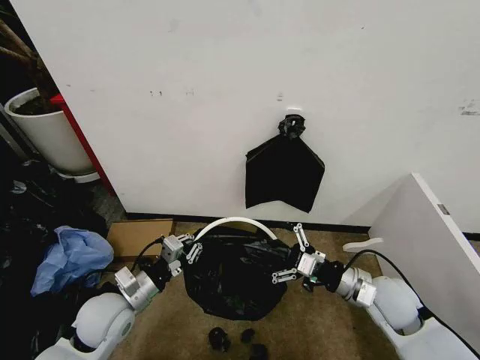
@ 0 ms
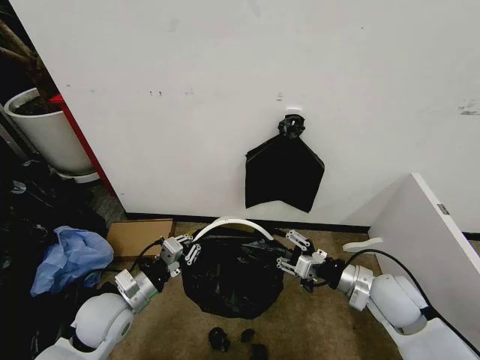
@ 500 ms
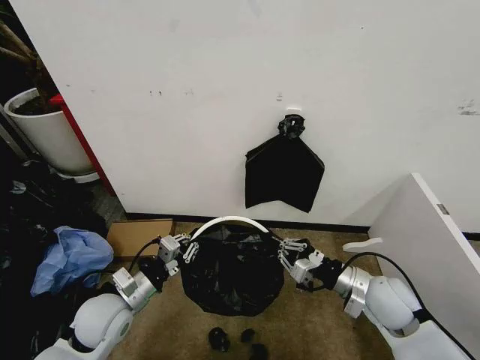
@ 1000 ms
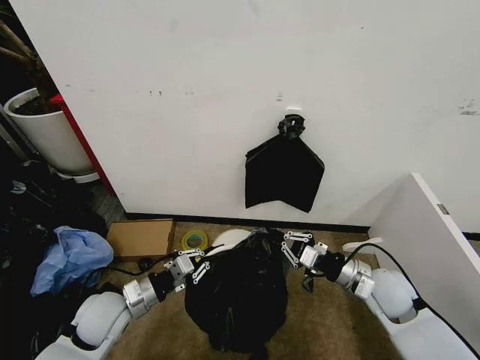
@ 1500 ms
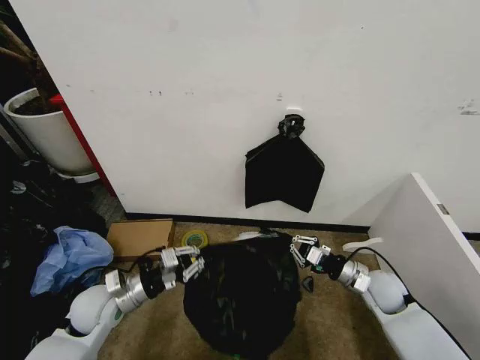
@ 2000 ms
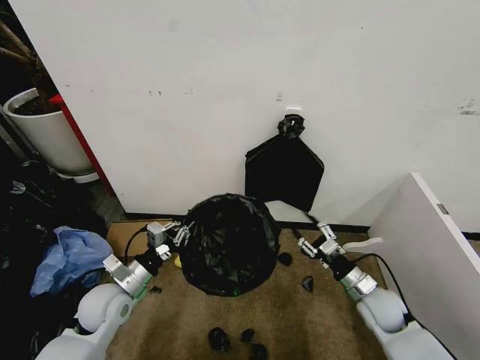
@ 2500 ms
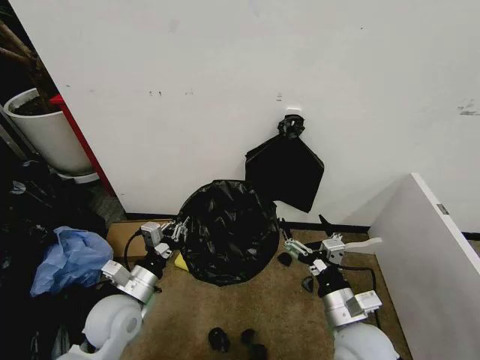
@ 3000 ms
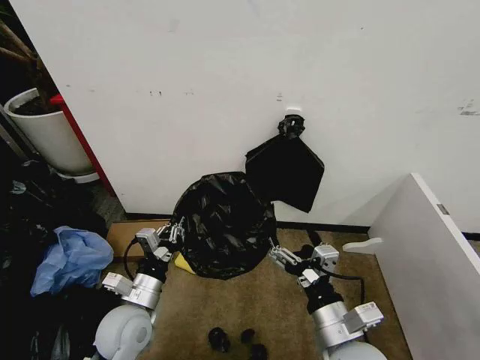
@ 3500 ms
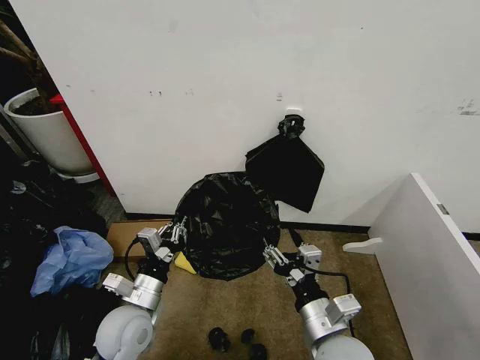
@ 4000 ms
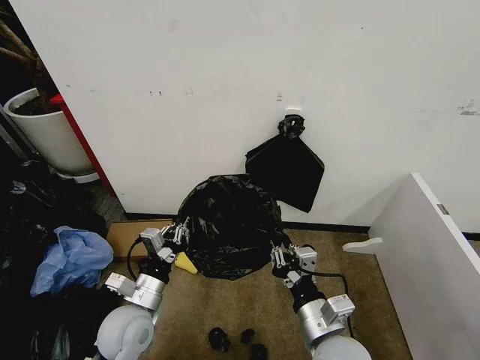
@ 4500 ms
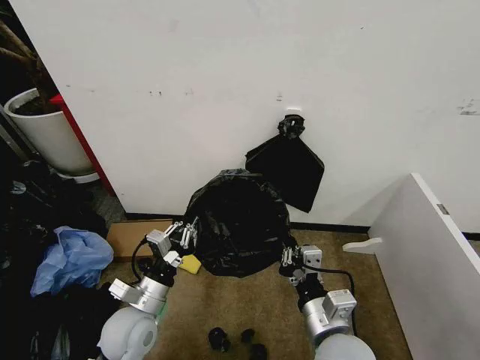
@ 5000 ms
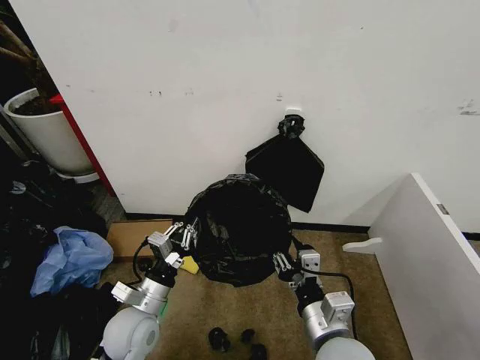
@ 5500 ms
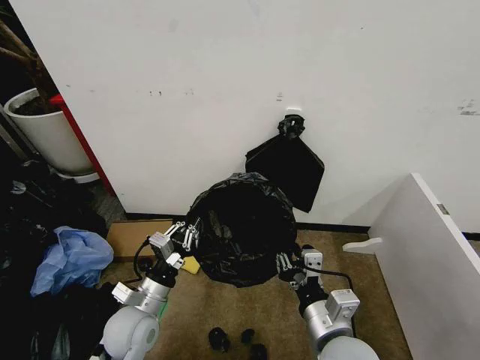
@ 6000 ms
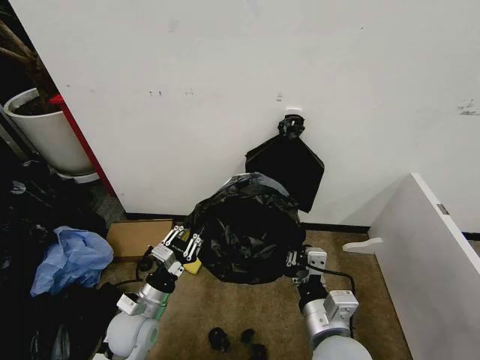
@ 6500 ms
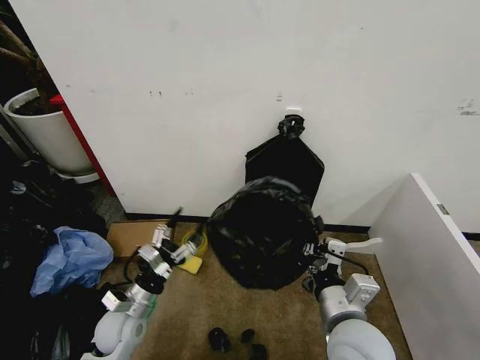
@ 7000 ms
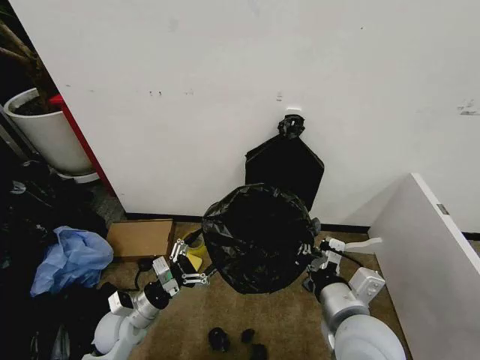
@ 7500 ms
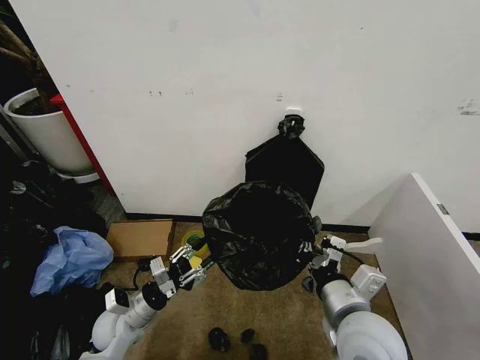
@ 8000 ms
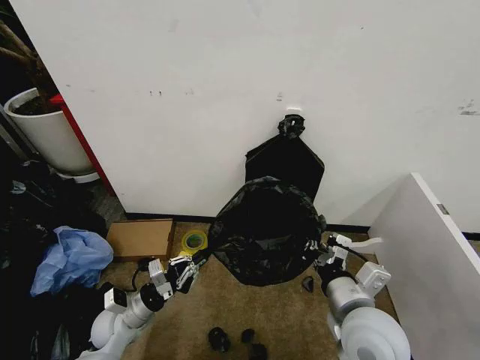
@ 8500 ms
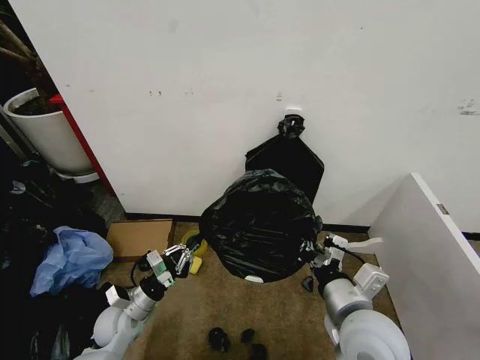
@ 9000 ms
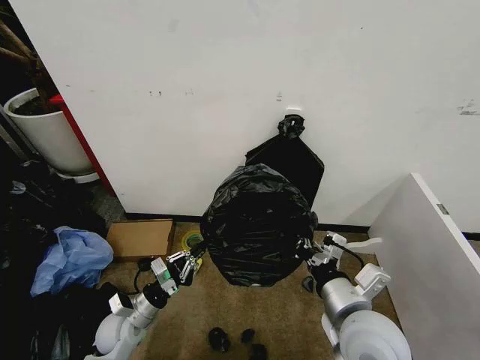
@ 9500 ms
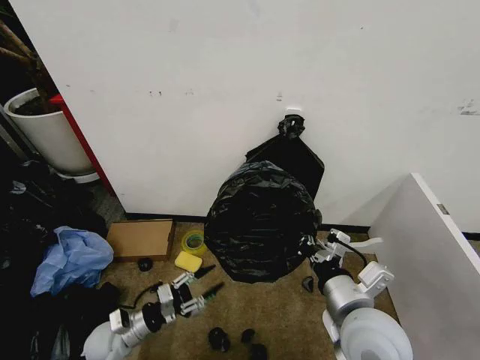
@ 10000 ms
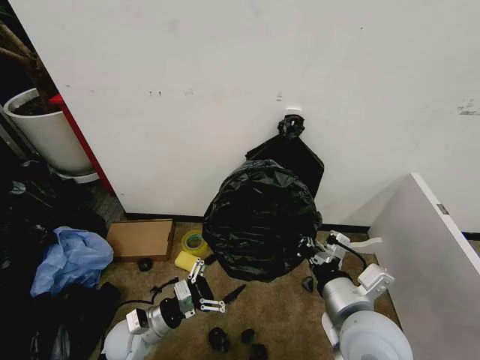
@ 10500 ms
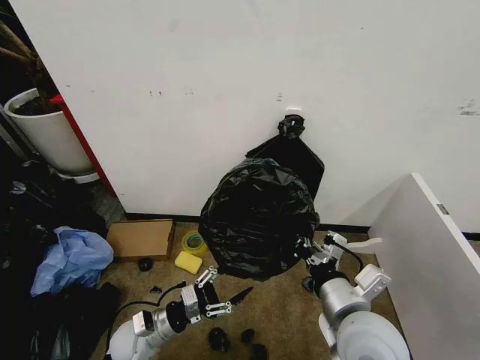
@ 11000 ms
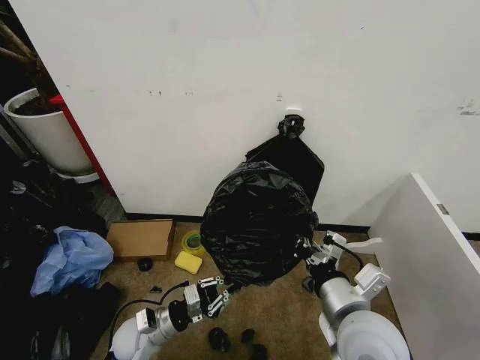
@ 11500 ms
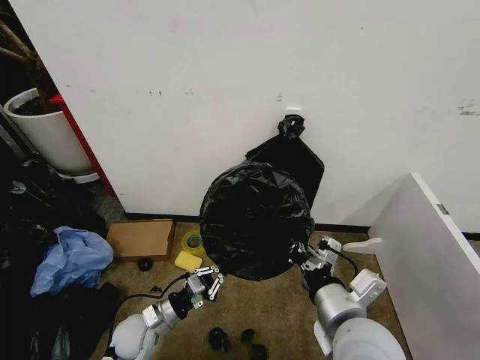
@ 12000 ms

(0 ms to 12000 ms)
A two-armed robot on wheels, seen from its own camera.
Task of the whole recording: Place the garbage bag over the trash bin.
0 ms - 2000 ms: The right gripper heads downward and forward, covering some 10 cm, and closes its fingers.
2000 ms - 4000 ms: The right gripper is displaced to the left, backward and upward by some 25 cm, and opens its fingers. Meanwhile the left gripper shifts about 10 cm to the right.
4000 ms - 6000 ms: The right gripper closes its fingers.
6000 ms - 8000 ms: The left gripper travels downward and to the left by approximately 10 cm, and opens.
8000 ms - 10000 ms: The left gripper ends up about 5 cm from where it was, and closes and opens again.
10000 ms - 12000 ms: The left gripper goes roughly 5 cm to the right, and closes up.

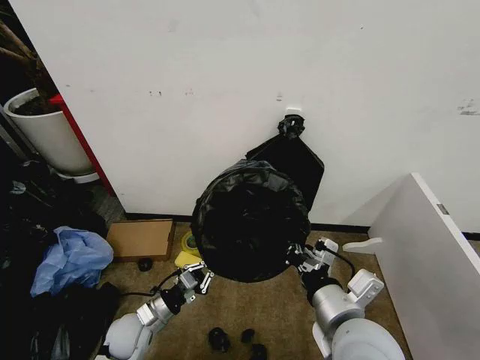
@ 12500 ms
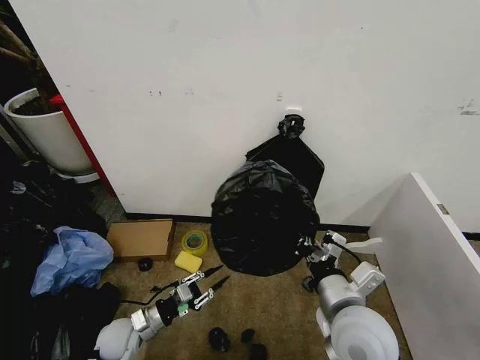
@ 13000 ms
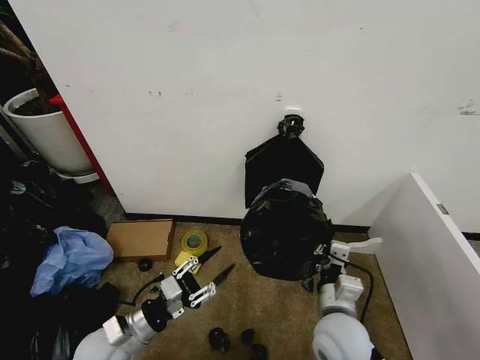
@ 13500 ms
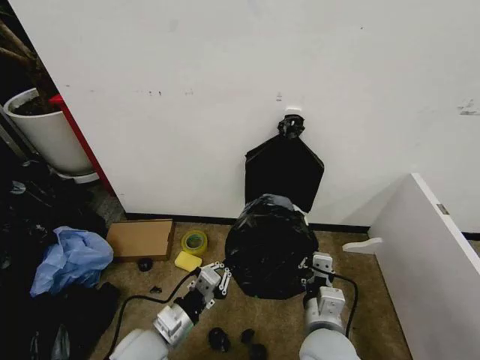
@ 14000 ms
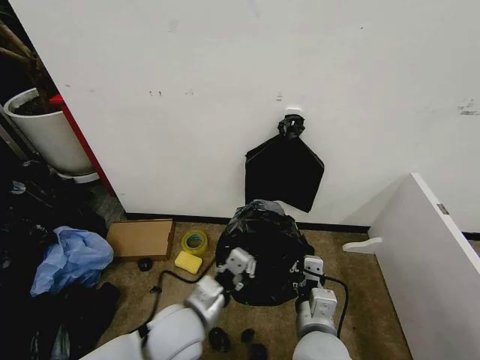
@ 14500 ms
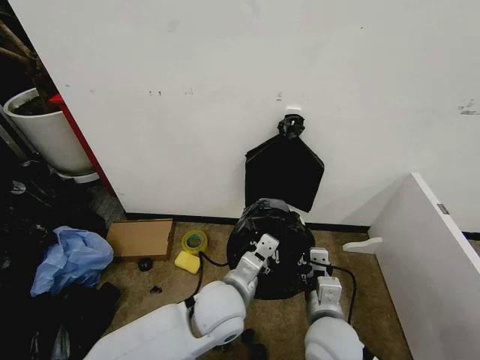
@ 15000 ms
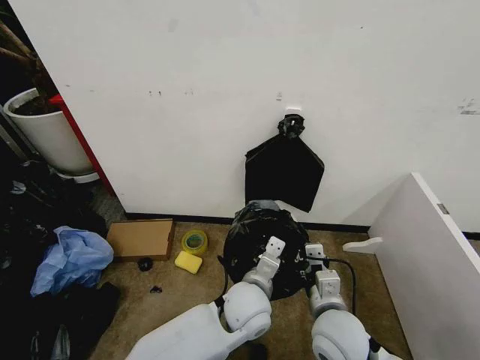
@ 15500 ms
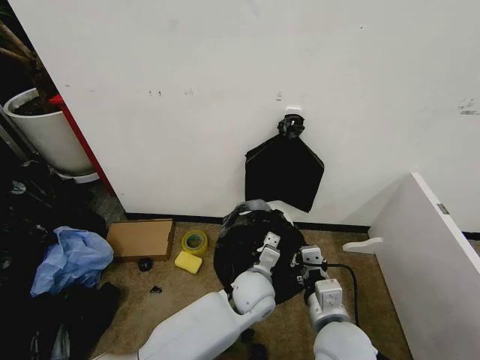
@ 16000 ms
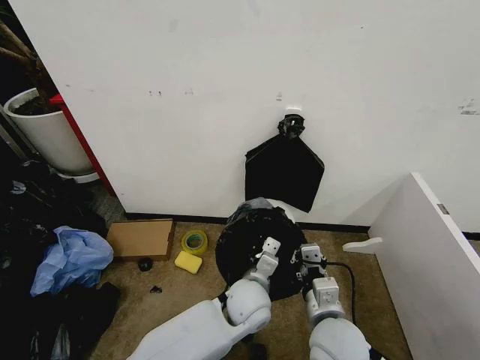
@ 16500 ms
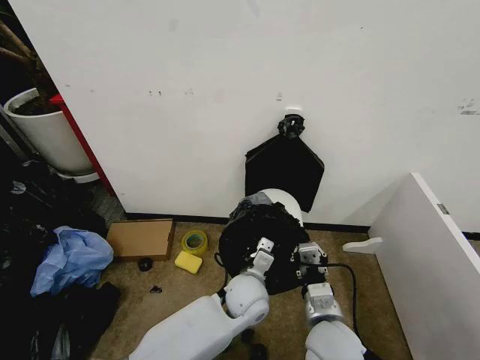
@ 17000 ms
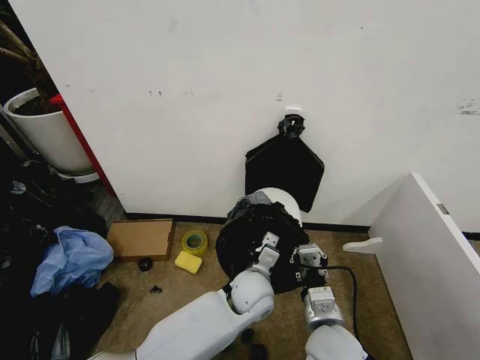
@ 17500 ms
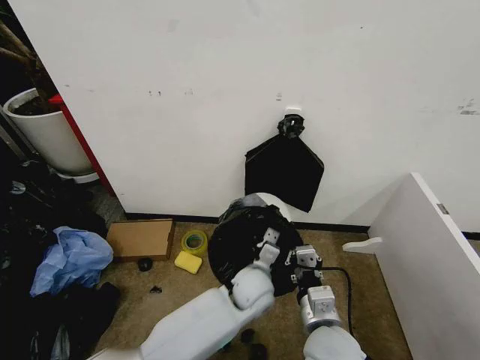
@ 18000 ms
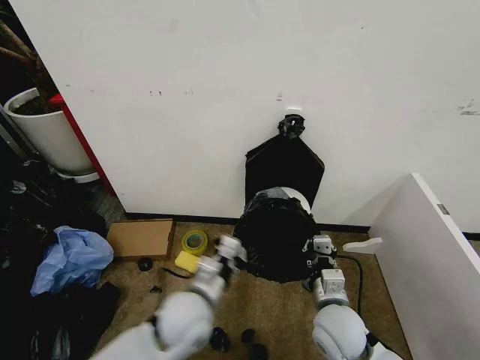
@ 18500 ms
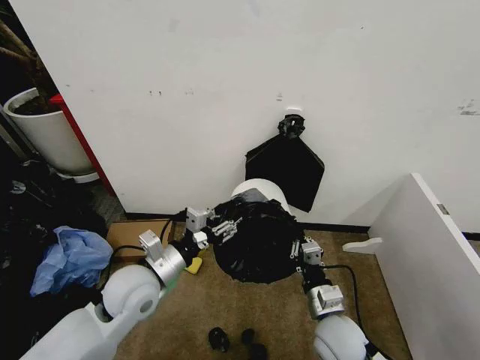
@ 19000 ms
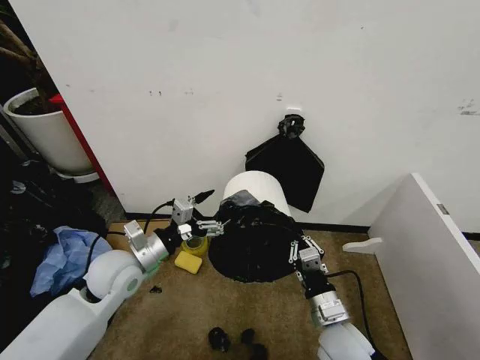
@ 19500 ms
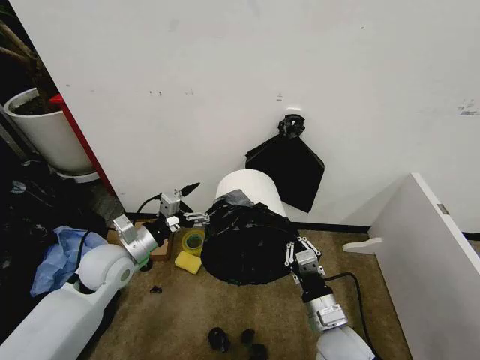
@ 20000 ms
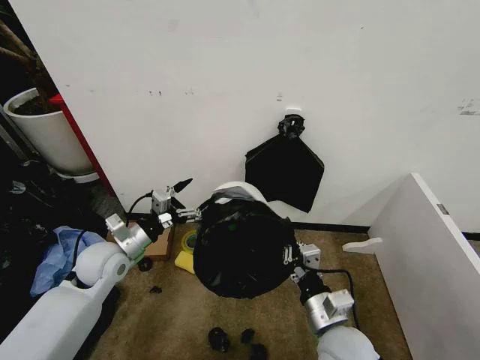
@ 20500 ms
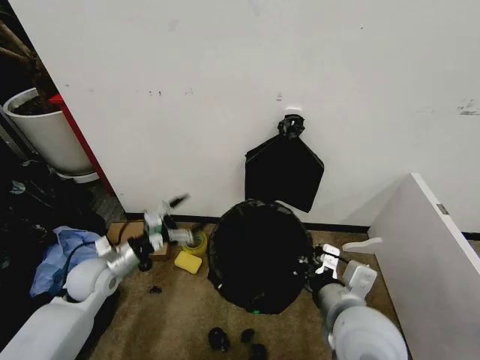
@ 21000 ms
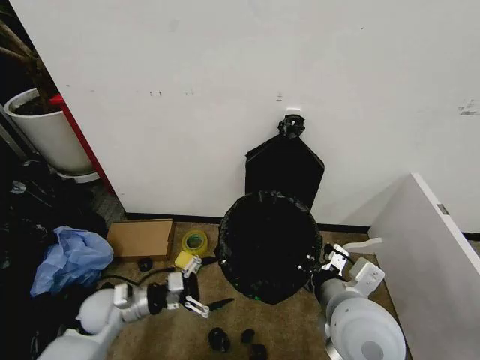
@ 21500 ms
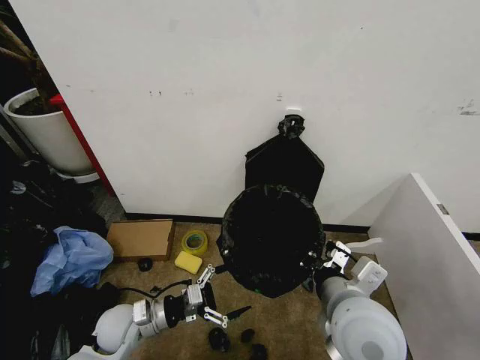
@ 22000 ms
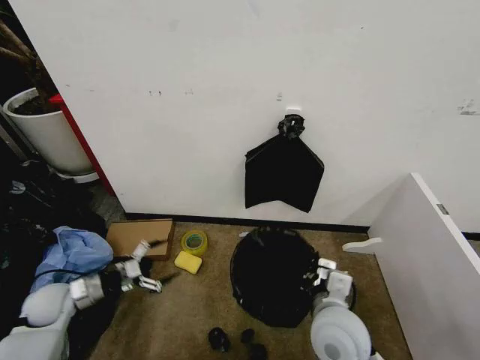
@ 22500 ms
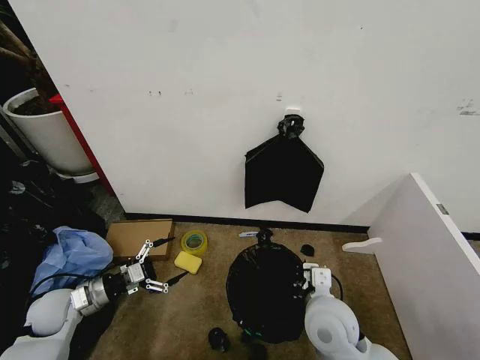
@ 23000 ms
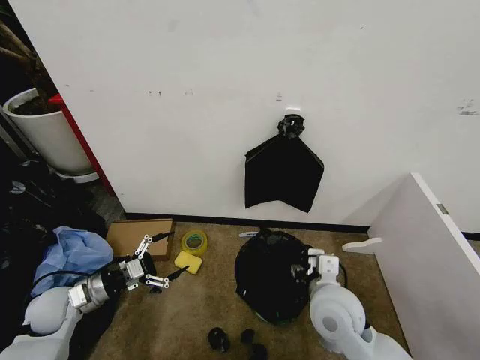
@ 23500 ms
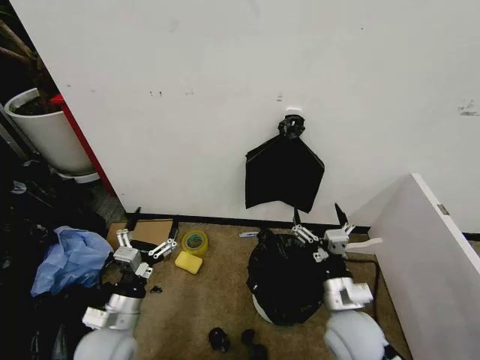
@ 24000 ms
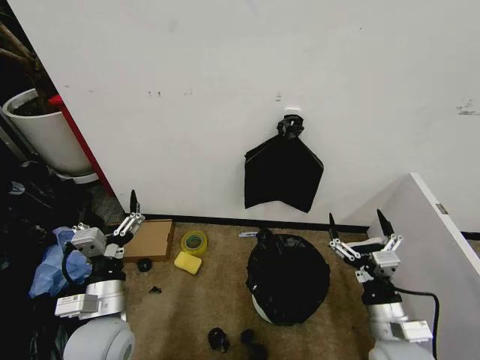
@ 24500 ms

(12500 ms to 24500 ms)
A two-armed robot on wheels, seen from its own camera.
Task of the whole recording: Place the garbage bag over the trash bin.
12500 ms - 14500 ms: The left gripper is displaced to the right and upward by about 20 cm, and opens, then closes once more. Meanwhile the right gripper shifts roughly 10 cm downward.
14500 ms - 16500 ms: The left gripper goes some 15 cm to the right and forward.
16500 ms - 18500 ms: The right gripper moves about 5 cm; the left gripper shifts approximately 10 cm to the left.
18500 ms - 20500 ms: The left gripper is displaced to the left and forward by some 25 cm, and opens its fingers.
20500 ms - 22500 ms: The right gripper goes upward and returns, some 10 cm each way. The left gripper shifts roughly 15 cm to the left and downward.
22500 ms - 24500 ms: The right gripper goes roughly 10 cm to the right, and opens. Meanwhile the left gripper travels to the right, backward and upward by approximately 25 cm.

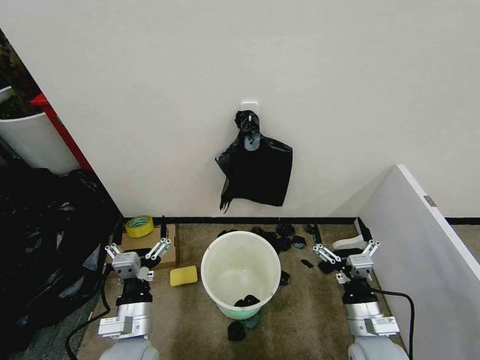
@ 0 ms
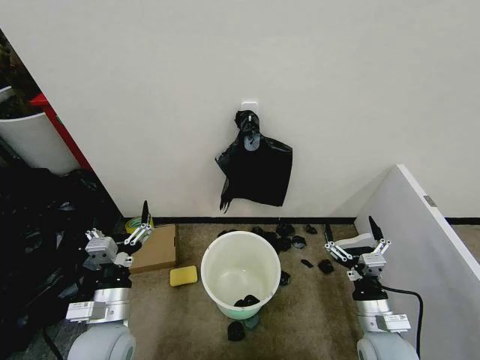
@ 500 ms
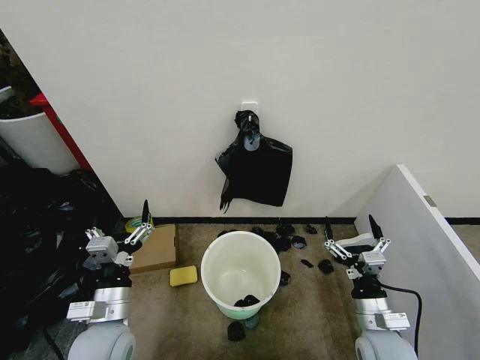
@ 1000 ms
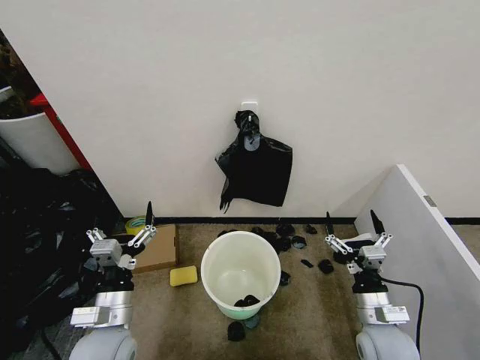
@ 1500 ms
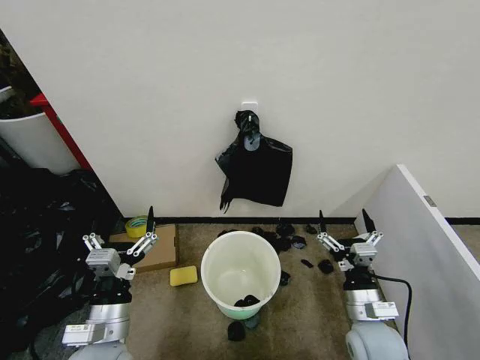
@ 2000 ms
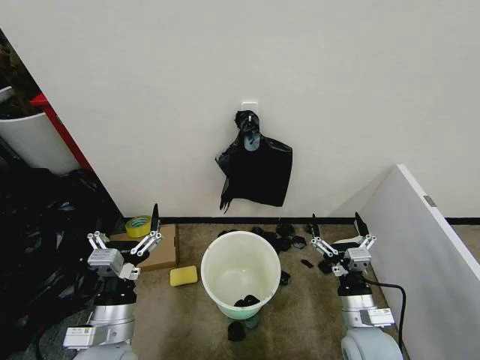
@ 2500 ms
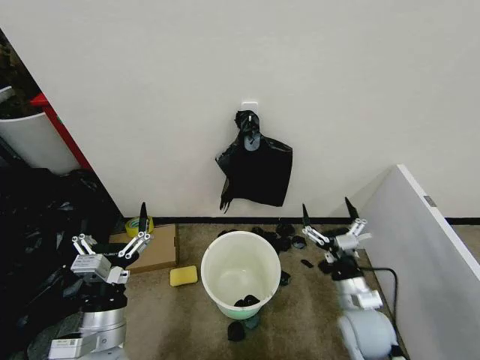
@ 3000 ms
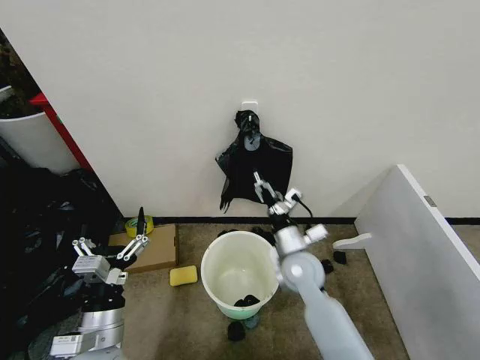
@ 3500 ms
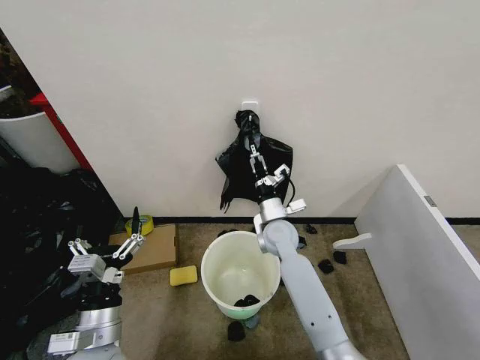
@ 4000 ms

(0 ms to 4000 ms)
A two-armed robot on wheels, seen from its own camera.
Task of the whole recording: Place the garbage bag over the trash bin.
2000 ms - 4000 ms: The right gripper moves forward and to the left, some 30 cm.
